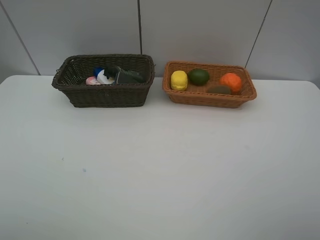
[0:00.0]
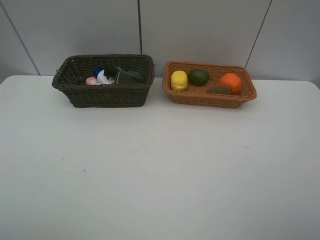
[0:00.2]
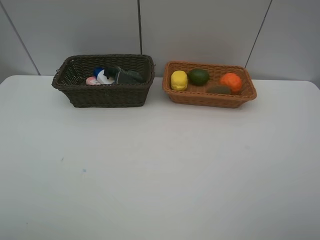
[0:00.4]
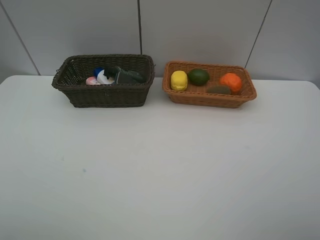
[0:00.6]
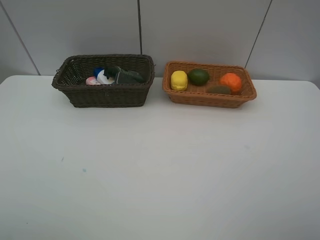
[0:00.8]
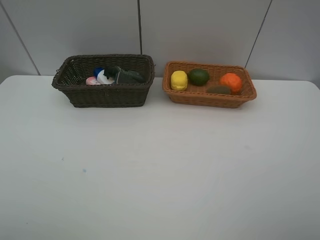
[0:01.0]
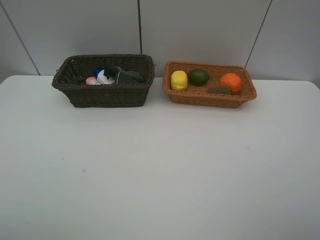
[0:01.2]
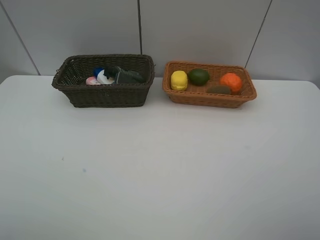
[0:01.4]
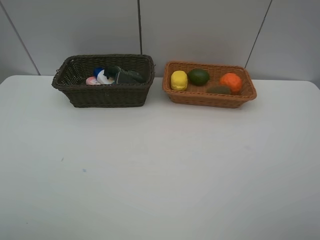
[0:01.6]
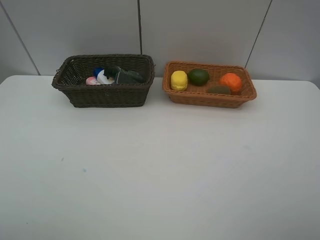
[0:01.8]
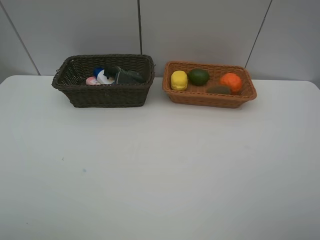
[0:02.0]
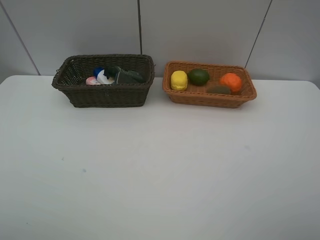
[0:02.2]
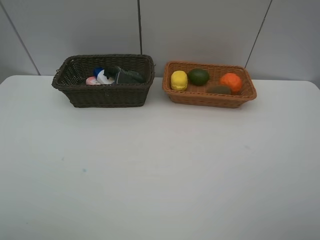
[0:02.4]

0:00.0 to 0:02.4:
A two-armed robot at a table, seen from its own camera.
Task of the whole recording: Place multiple objects separately in different baskets.
0:00.0 to 0:02.4: Both grippers stay about where they are.

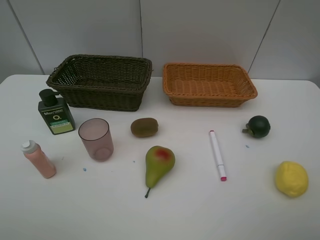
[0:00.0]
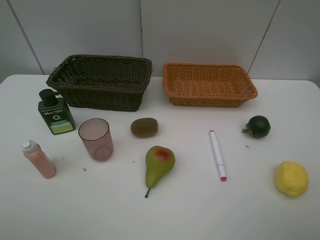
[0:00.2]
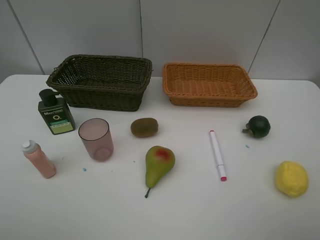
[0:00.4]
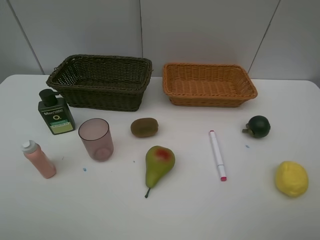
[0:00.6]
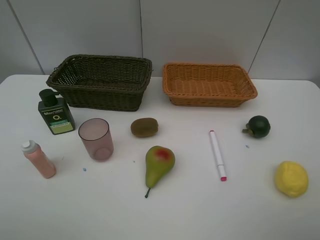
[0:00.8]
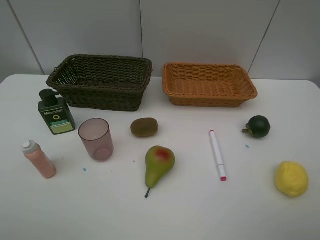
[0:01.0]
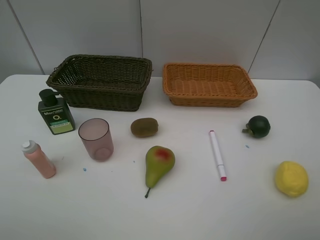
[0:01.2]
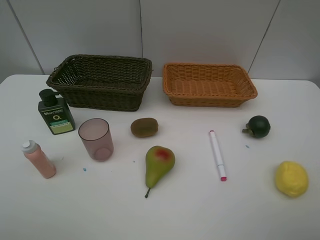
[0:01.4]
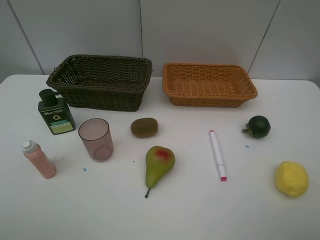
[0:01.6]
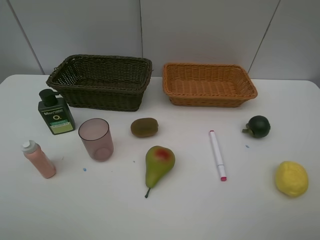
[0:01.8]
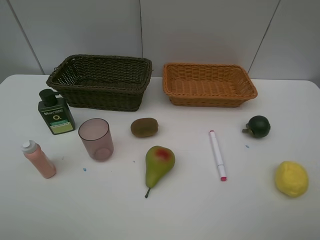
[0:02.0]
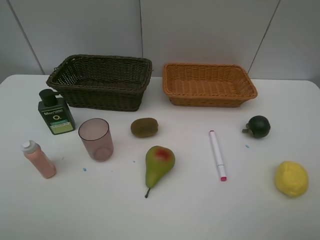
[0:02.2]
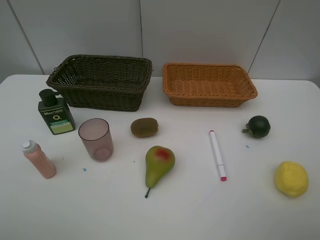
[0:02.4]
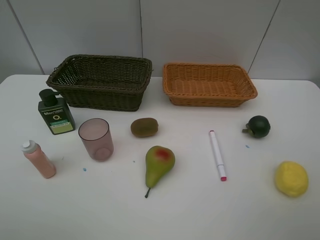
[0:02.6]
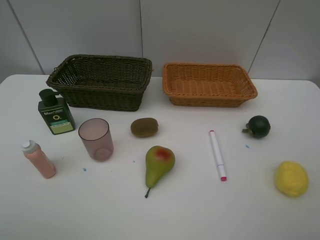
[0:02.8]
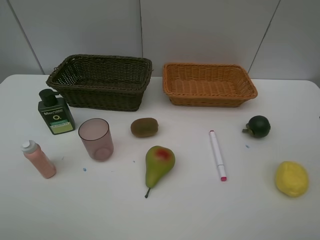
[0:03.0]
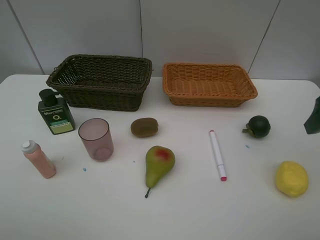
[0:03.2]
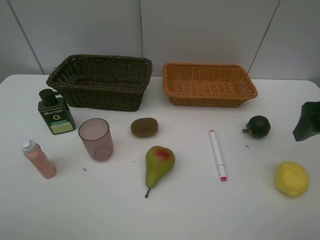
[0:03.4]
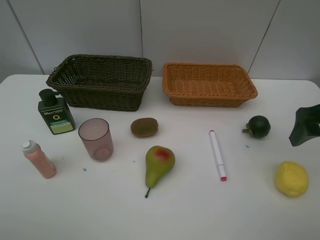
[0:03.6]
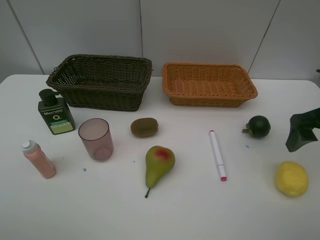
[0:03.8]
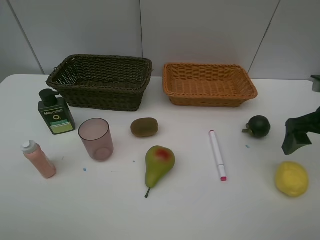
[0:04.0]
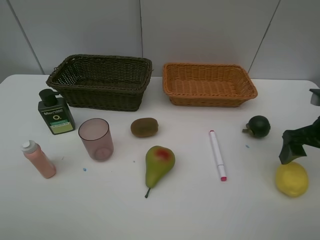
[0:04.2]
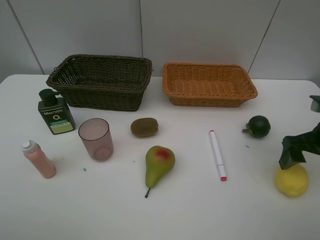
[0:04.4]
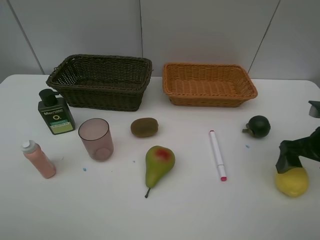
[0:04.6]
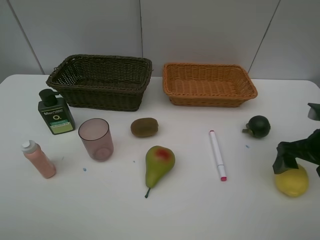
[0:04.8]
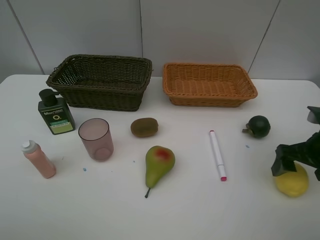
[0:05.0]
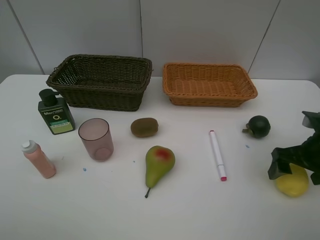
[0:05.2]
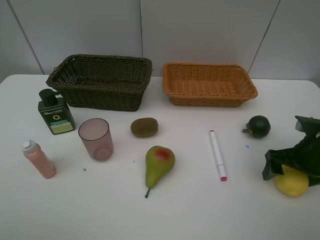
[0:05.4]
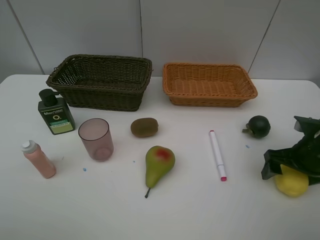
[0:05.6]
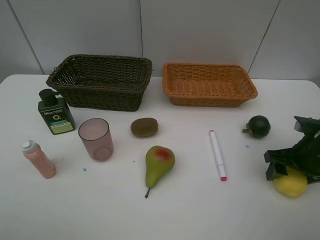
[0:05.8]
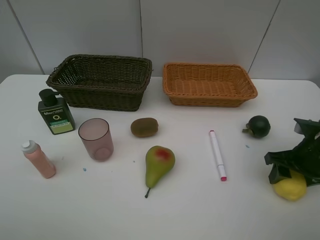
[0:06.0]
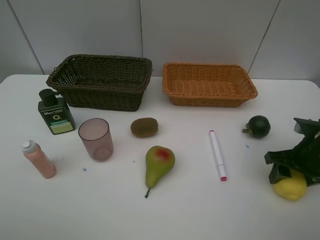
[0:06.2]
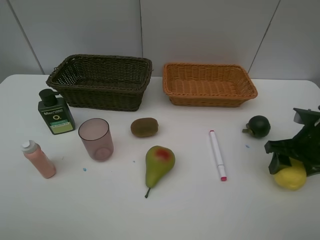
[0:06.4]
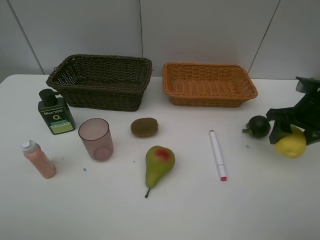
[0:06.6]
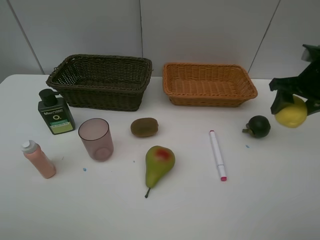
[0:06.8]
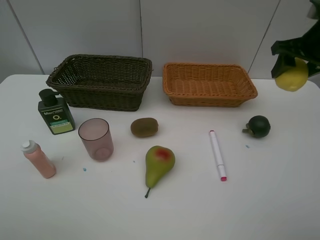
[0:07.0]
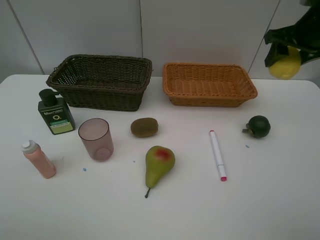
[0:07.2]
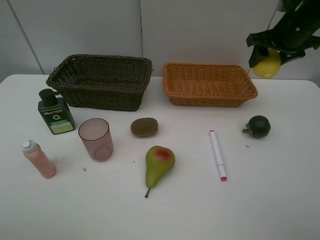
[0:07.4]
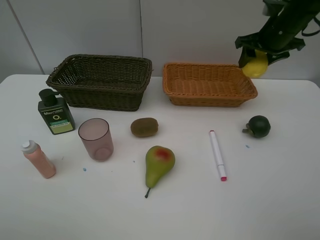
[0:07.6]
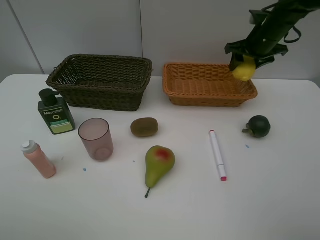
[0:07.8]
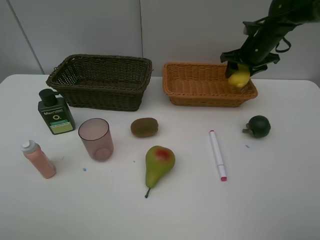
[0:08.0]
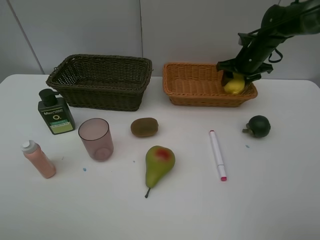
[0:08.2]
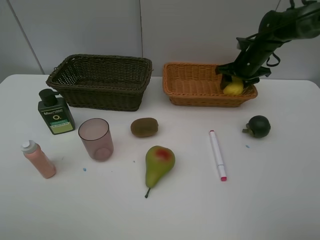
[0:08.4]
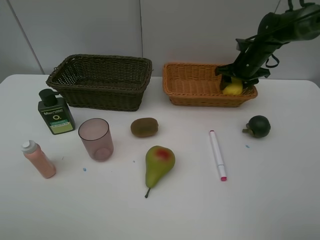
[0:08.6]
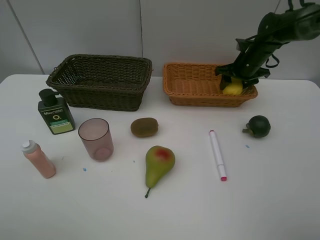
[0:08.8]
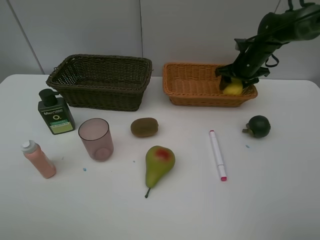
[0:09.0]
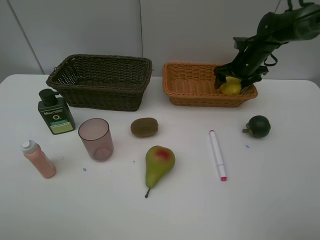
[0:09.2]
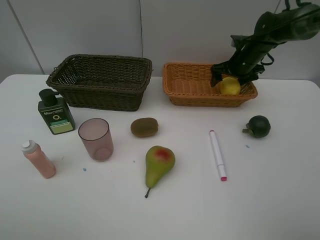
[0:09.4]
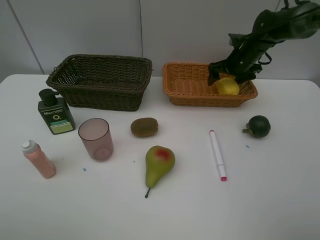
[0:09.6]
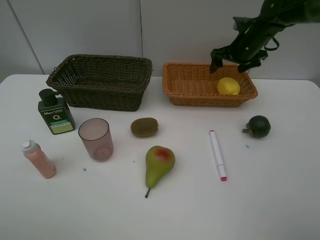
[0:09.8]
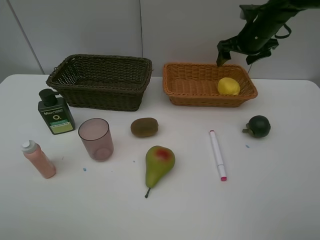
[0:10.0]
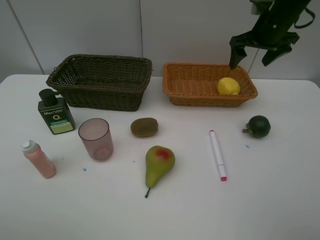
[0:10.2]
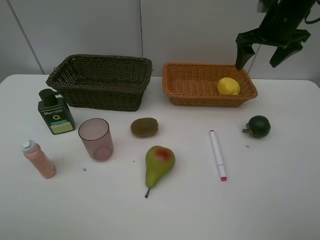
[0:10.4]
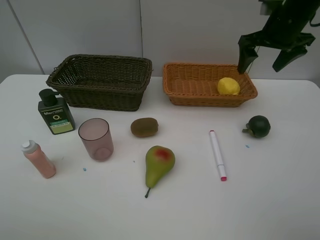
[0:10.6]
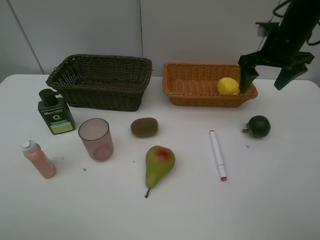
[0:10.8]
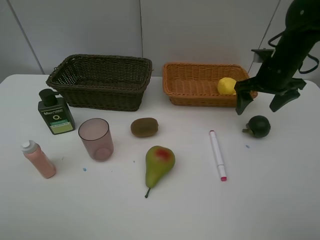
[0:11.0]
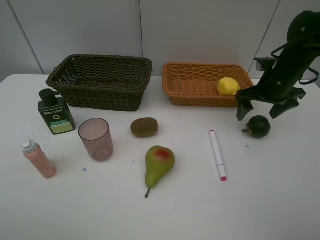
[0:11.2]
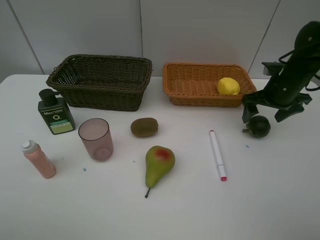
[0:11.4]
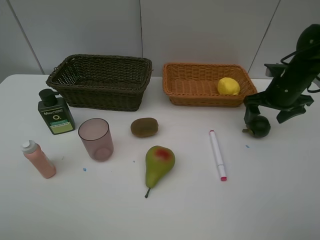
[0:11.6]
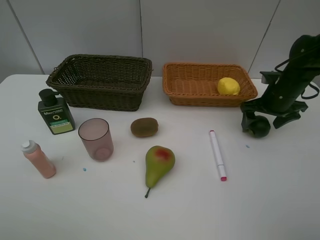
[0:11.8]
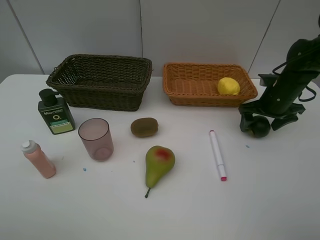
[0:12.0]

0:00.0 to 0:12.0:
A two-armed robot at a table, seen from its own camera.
Task of the whole recording: Place multiple objects separately in different baskets.
Step, 0:00.0 to 0:06.4: Pick up the lemon with right gripper.
Step, 0:06.6 to 0:09.8: Place the lemon in the light basket with right gripper.
0:00.0 to 0:01.6: The two grippers keep their place.
0:03.0 to 0:04.4: The right gripper moves downward, roughly 10 cm.
0:04.4 to 0:06.0: The right gripper shifts approximately 5 cm downward, and closes.
0:06.0 to 0:07.6: The right gripper is displaced forward and upward by roughly 25 cm.
0:07.6 to 0:09.0: The right gripper travels downward and forward by approximately 10 cm.
0:09.0 to 0:10.4: The right gripper heads upward and backward, covering about 15 cm.
0:10.4 to 0:12.0: The right gripper shifts about 15 cm downward.

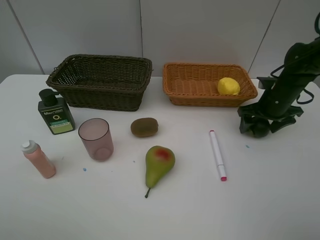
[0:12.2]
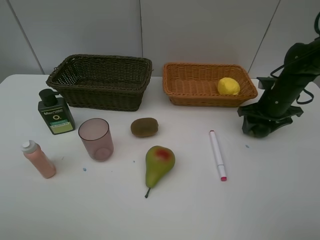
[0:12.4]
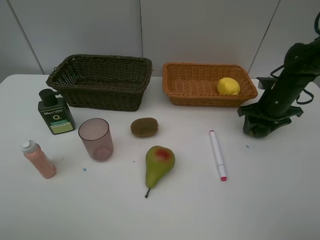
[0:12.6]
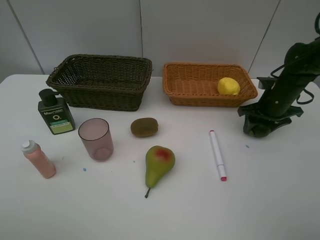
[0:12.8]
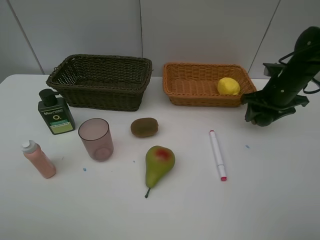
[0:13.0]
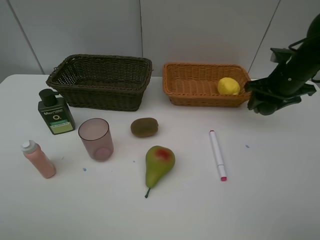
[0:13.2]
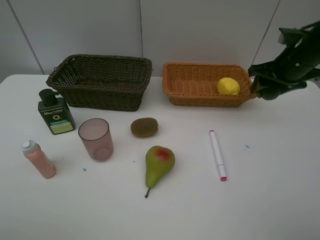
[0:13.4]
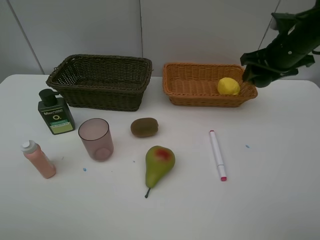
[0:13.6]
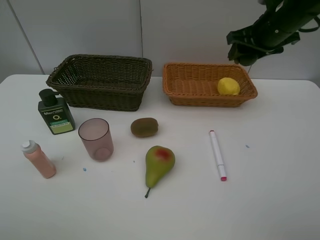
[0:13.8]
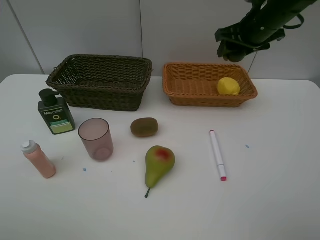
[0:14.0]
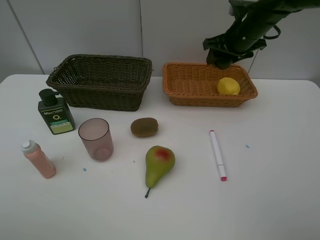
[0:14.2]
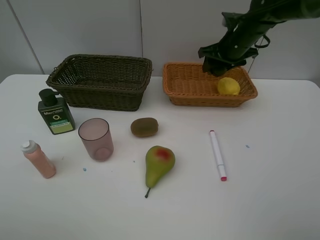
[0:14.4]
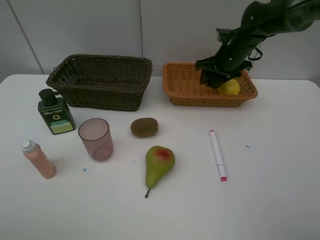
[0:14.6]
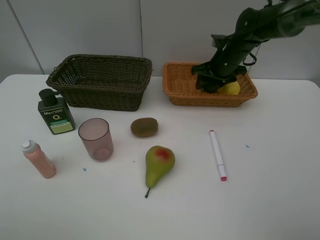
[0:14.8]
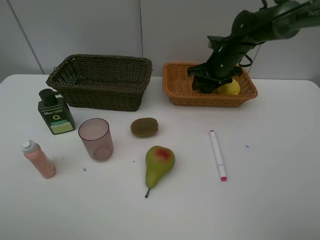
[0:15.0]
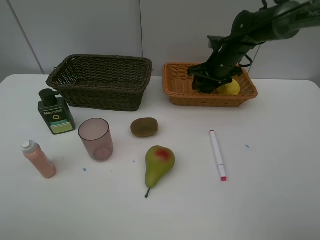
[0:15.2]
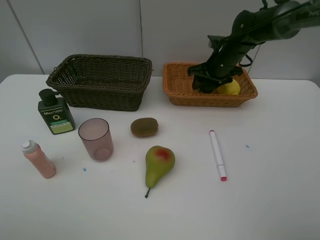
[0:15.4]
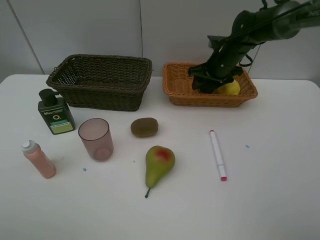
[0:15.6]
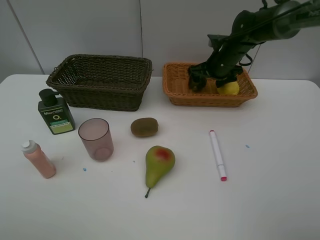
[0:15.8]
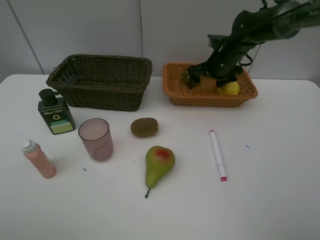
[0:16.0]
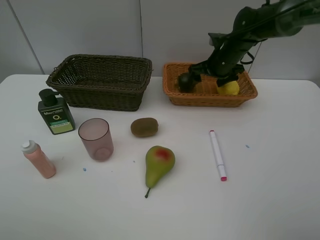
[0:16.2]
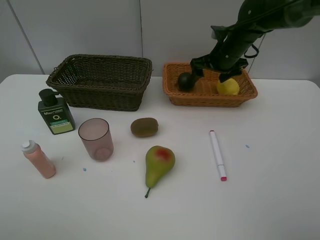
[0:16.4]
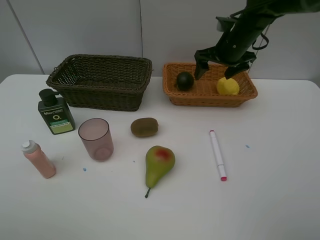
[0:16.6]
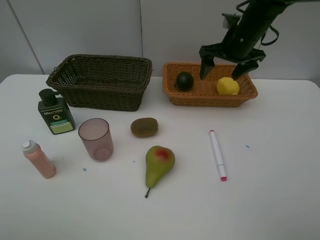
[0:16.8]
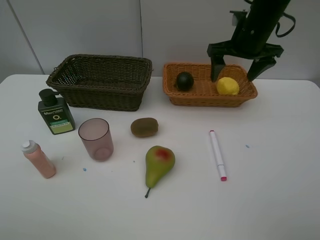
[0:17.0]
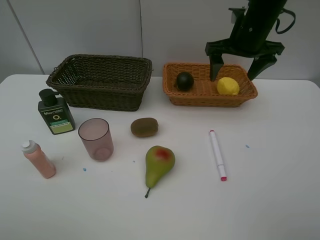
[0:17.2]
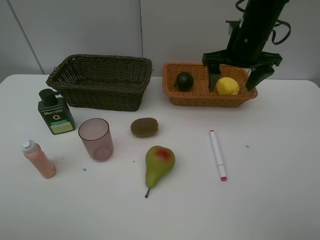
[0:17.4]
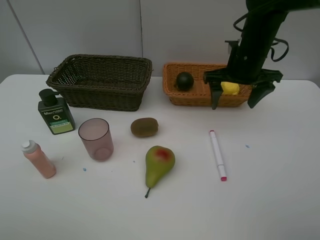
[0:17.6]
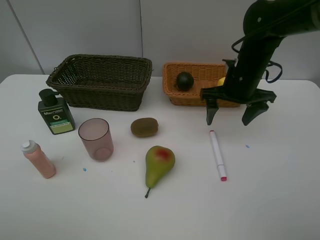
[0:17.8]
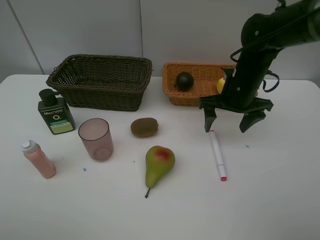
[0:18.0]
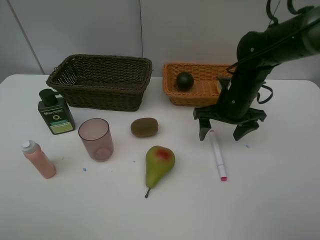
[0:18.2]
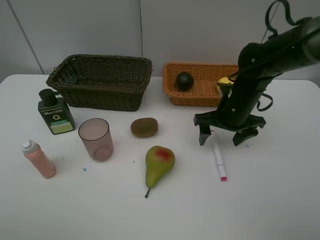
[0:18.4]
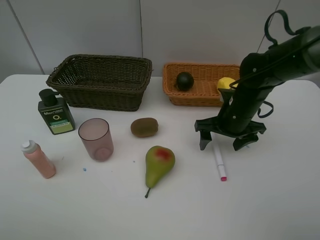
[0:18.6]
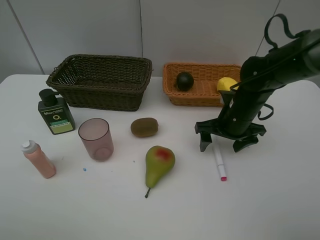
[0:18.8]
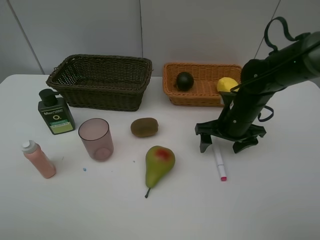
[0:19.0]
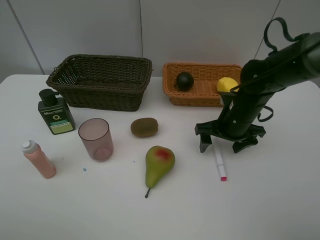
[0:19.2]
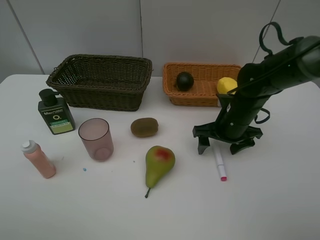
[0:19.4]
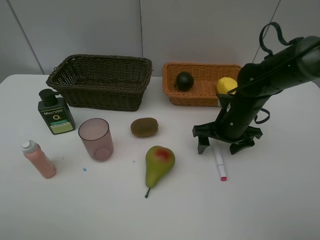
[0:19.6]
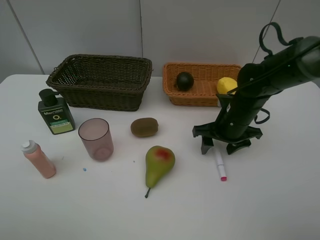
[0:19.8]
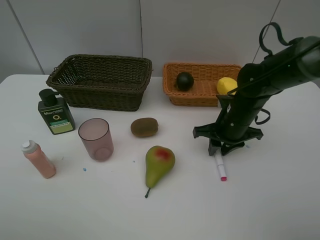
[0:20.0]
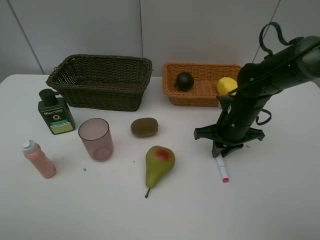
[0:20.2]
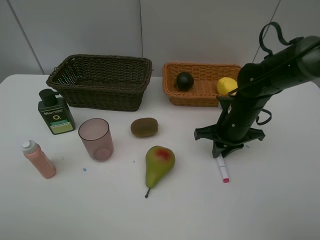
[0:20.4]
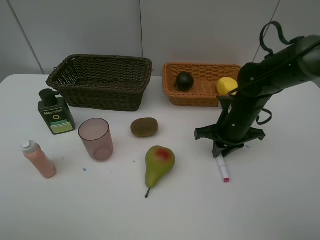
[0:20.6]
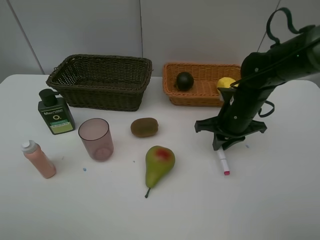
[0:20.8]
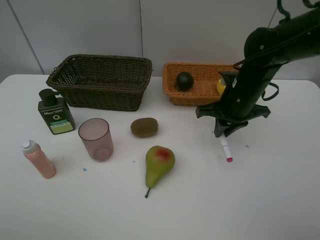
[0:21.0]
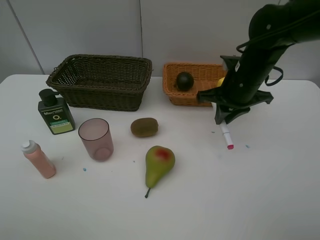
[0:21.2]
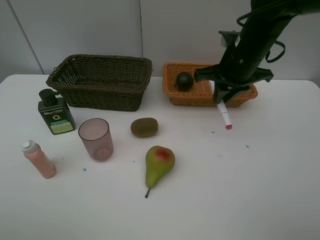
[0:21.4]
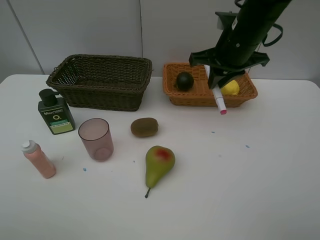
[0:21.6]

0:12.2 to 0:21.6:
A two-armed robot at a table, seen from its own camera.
Task of the whole recording: Place multiple objects separately in different baskets.
Step, 0:13.2 to 0:16.4: Place the mangosteen in the light basket with right gripper.
Step, 0:16.6 to 0:20.8: Pick up pink marker pen with right gripper.
0:12.2 to 0:13.8: The right gripper heads upward and to the left, covering about 15 cm.
0:13.8 to 0:15.4: The right gripper shifts about 15 cm downward, forward and to the left.
0:15.4 to 0:17.0: The right gripper travels upward and backward by roughly 15 cm, and opens.
0:17.0 to 0:18.4: The right gripper moves downward and backward, roughly 15 cm.
0:18.4 to 0:20.0: The right gripper closes up.
0:20.0 to 0:21.6: The right gripper travels upward by about 15 cm.
